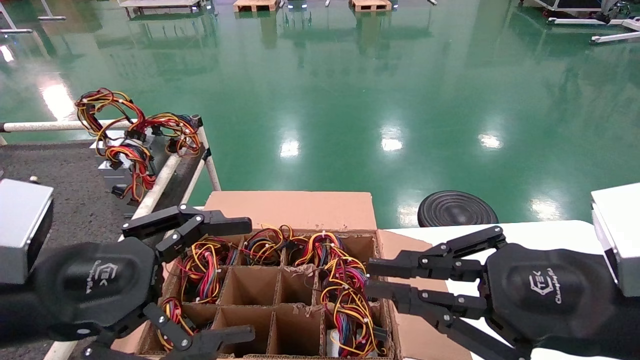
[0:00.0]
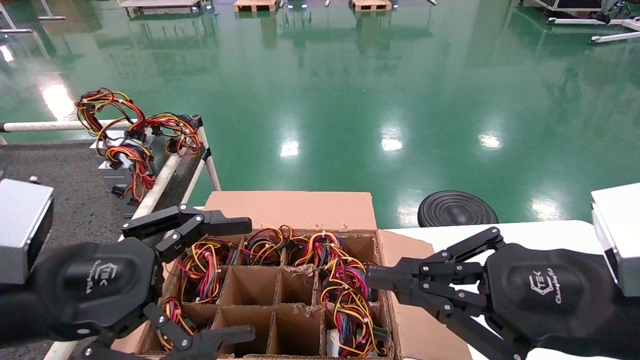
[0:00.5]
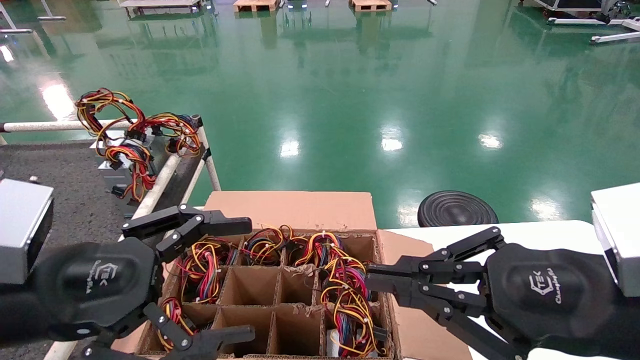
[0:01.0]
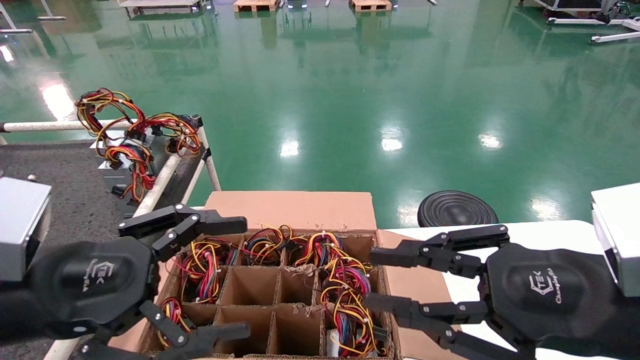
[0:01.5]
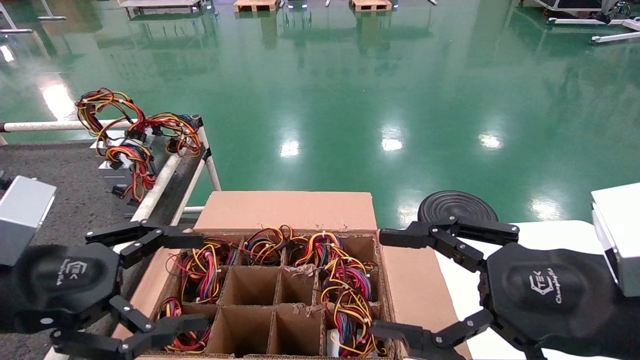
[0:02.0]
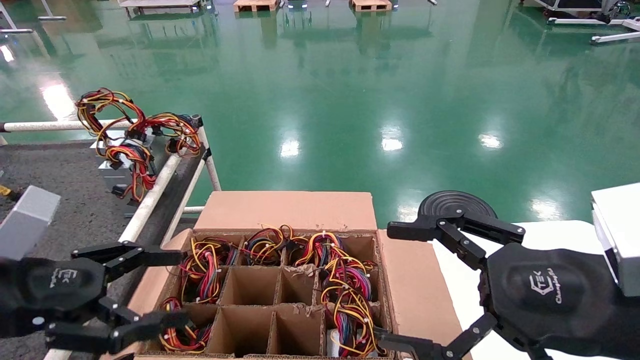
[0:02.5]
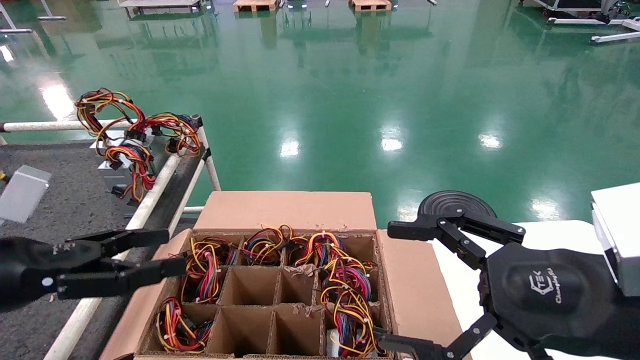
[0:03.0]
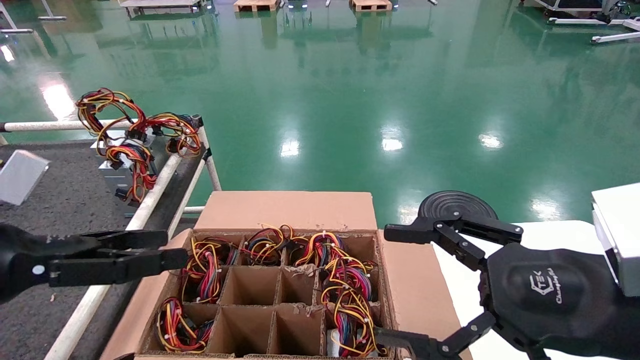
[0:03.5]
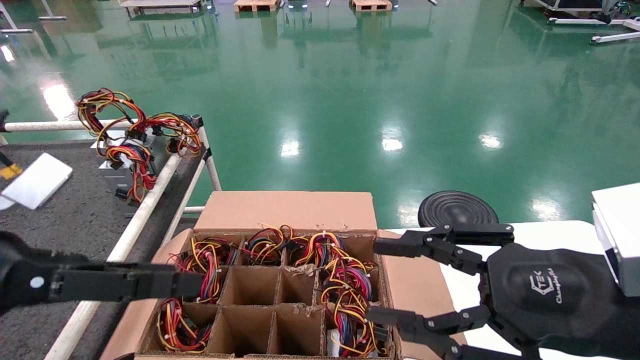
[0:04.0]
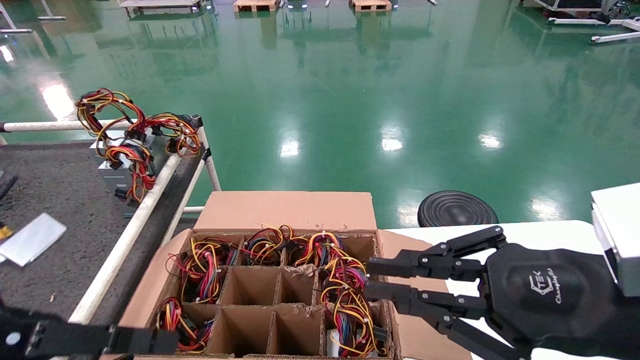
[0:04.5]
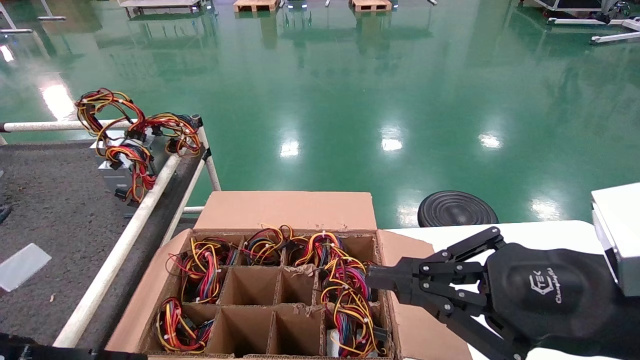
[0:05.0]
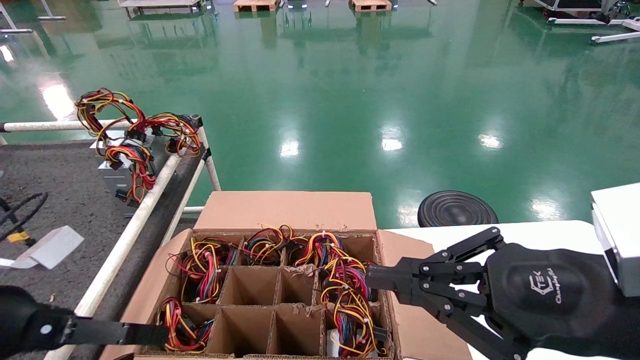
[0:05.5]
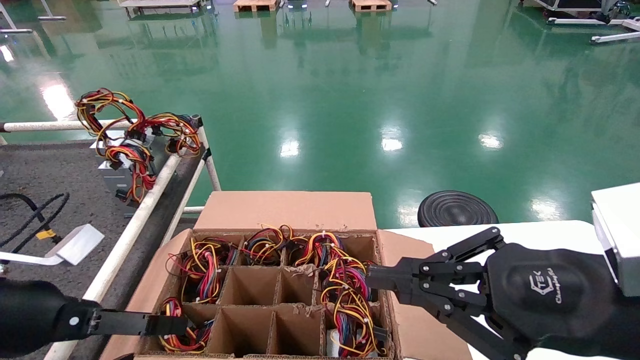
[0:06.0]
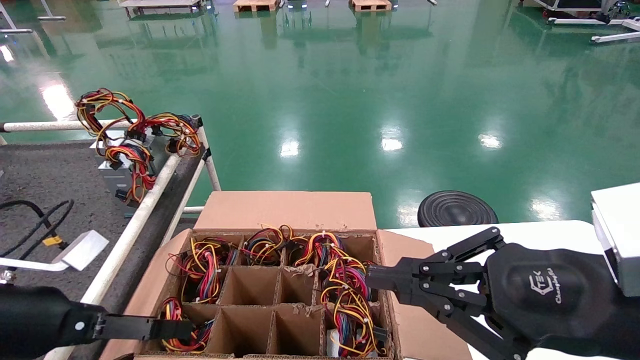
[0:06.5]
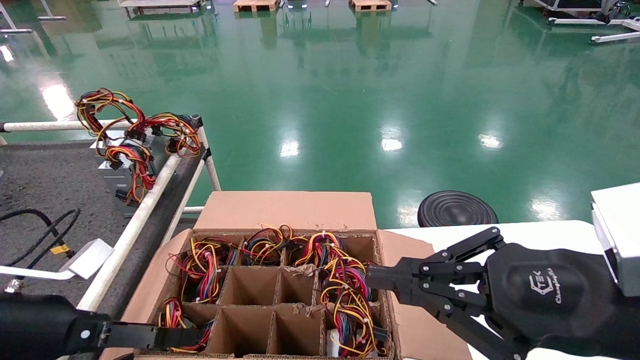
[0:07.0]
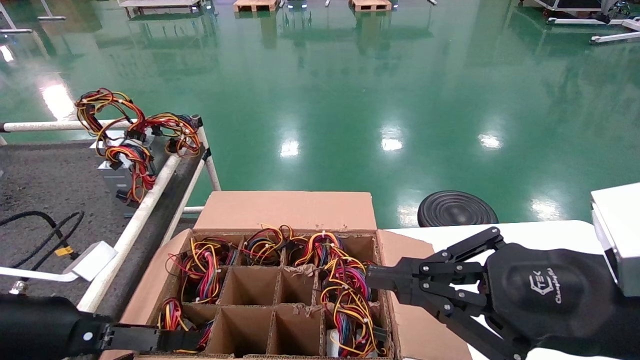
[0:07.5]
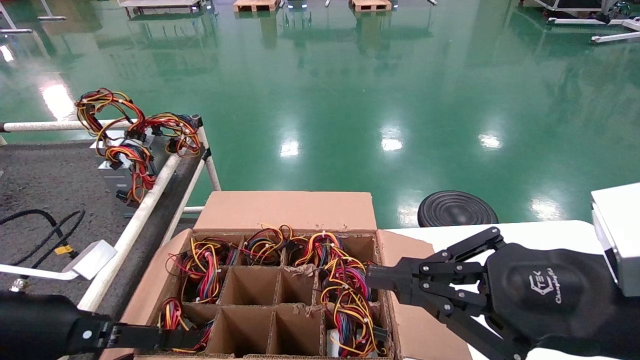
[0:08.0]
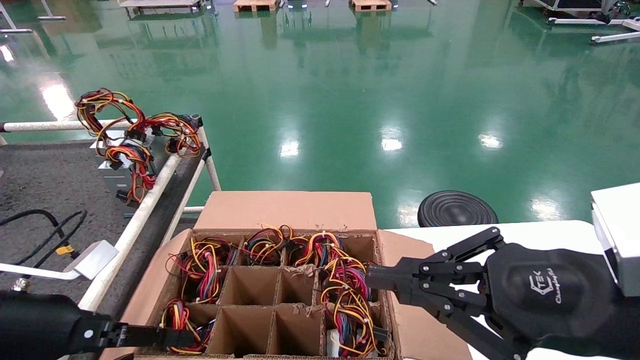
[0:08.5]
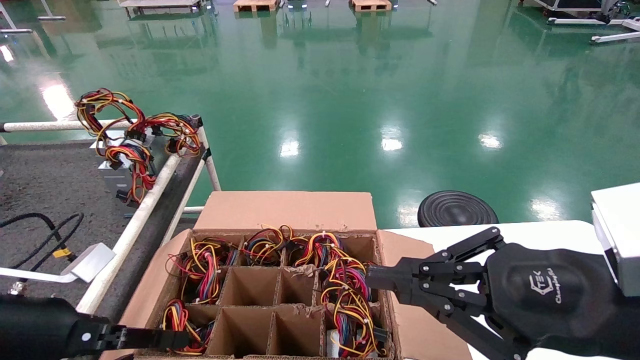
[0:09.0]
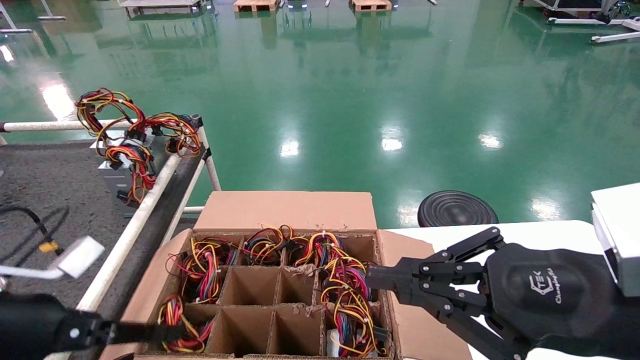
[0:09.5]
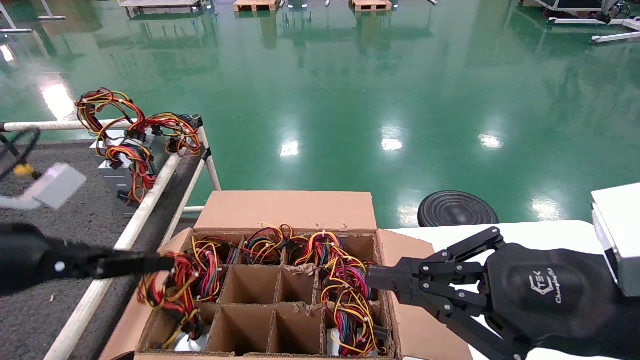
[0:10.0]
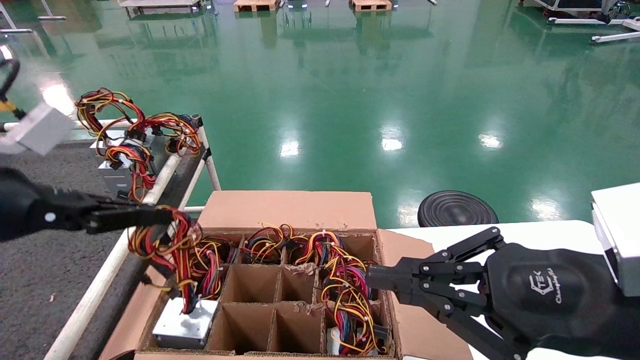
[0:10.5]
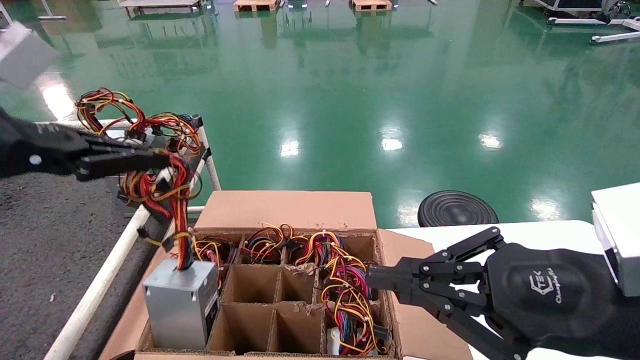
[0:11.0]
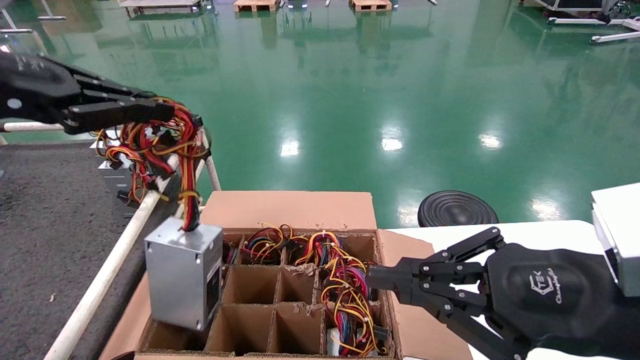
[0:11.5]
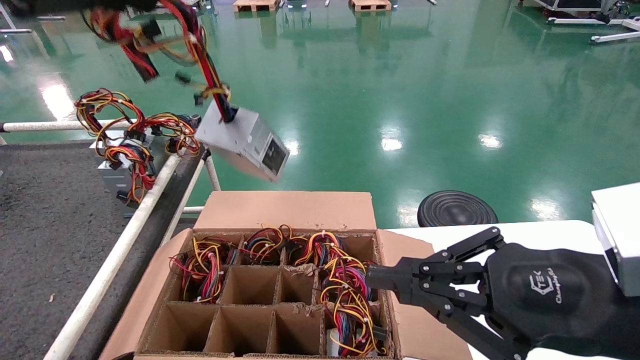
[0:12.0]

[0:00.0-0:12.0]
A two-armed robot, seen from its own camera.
Step, 0:02.0 to 0:09.0: Grab and lift the power supply from the large box.
0:00.0 to 0:02.0: The right gripper opens up.
0:04.0 to 0:06.0: The right gripper closes its fingers; the left gripper goes roughly 10 cm downward and forward.
0:06.0 to 0:08.0: There are only small adjustments of the grippers.
0:08.0 to 0:10.0: The left gripper goes approximately 10 cm upward, and closes.
0:10.0 to 0:12.0: The left gripper moves upward and backward, approximately 25 cm.

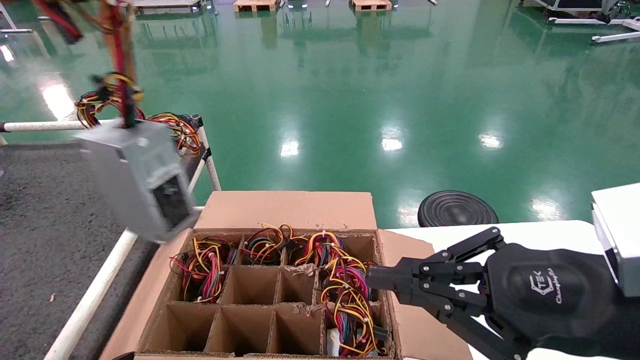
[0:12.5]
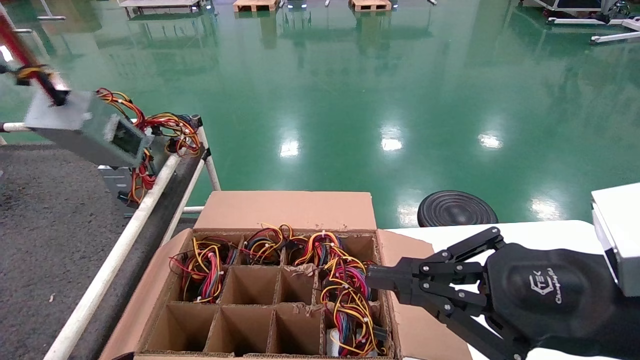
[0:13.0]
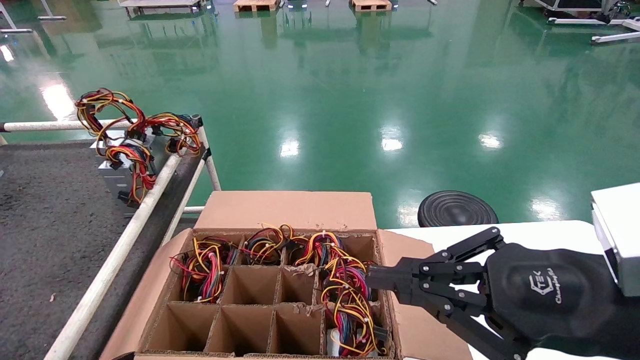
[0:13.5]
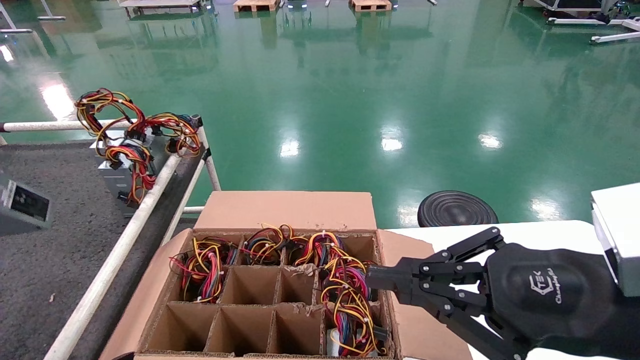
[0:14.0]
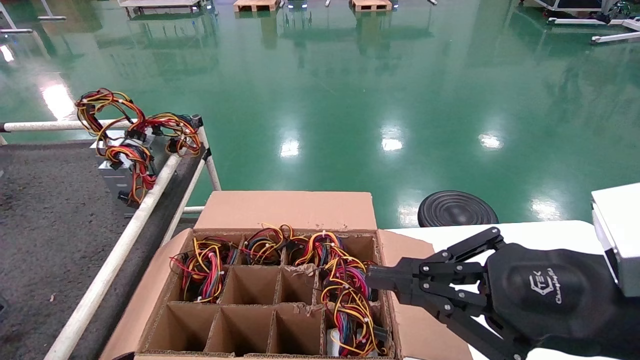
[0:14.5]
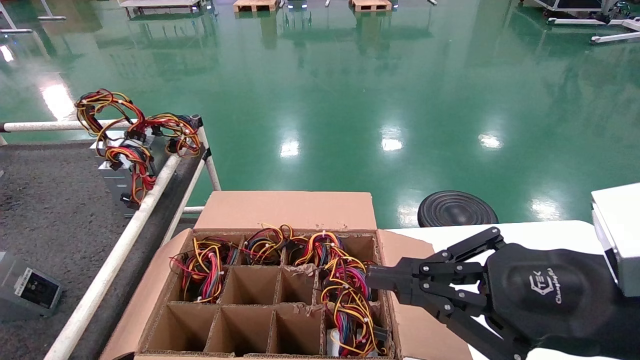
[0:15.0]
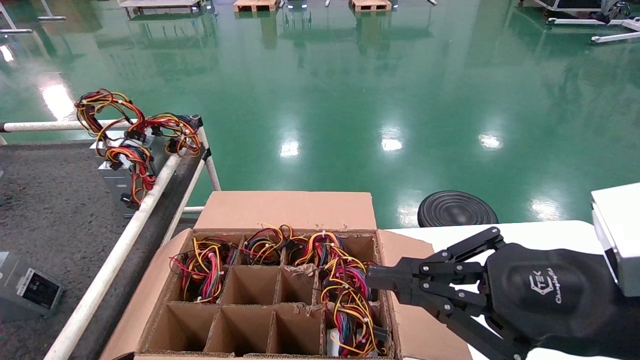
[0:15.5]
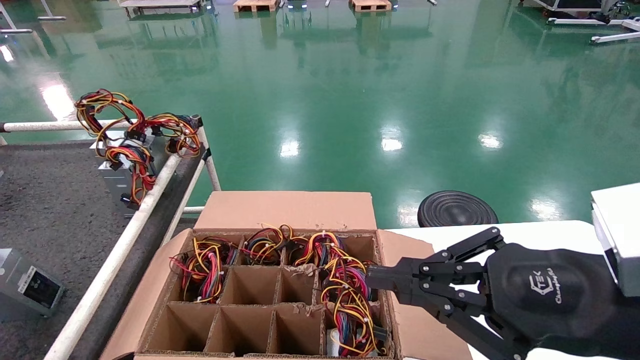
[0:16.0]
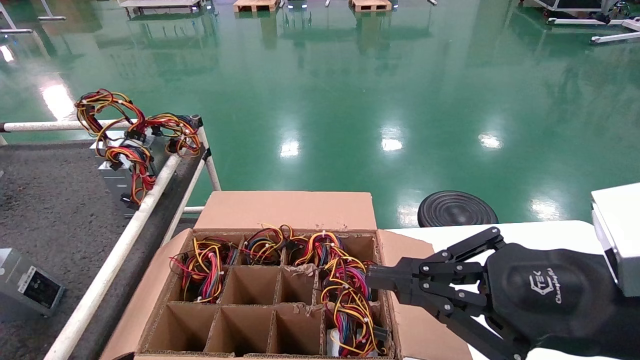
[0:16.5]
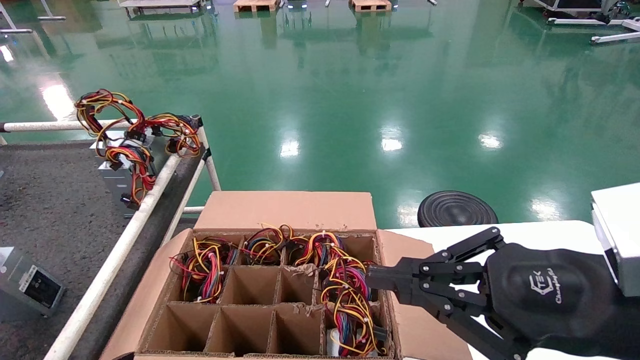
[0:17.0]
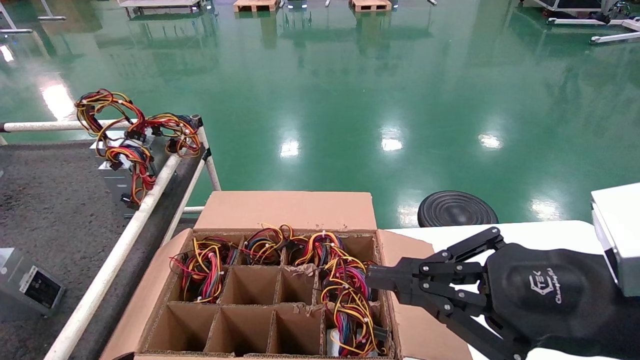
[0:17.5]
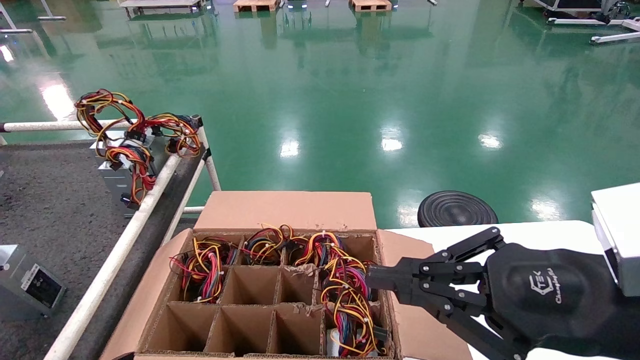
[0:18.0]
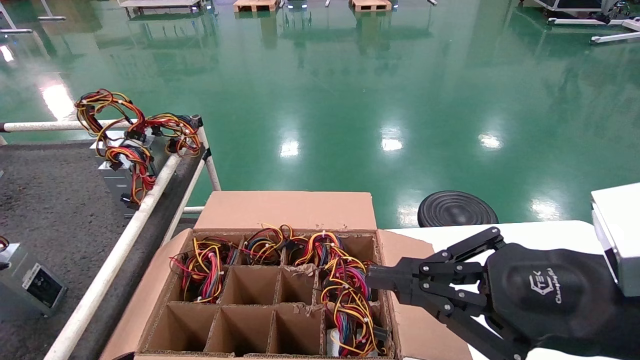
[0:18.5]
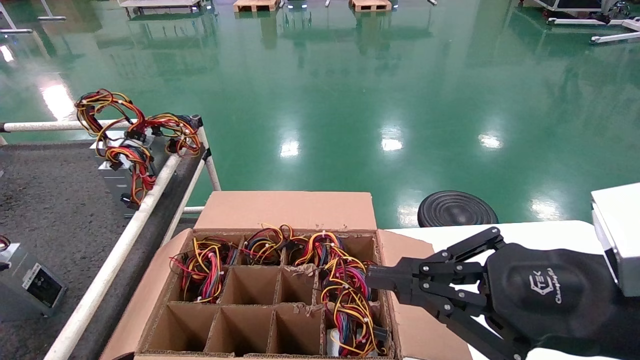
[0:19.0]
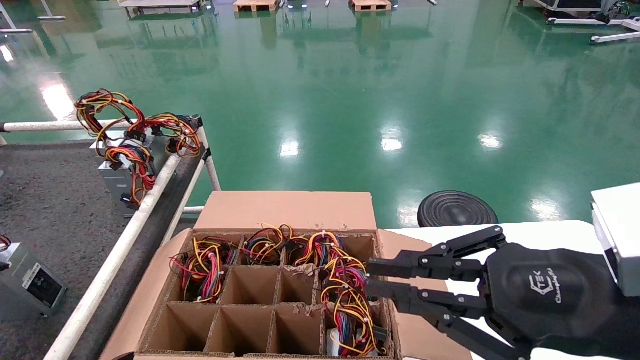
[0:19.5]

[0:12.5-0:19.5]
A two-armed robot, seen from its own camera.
Step, 0:12.5 to 0:17.5: Place the power supply on the operating table.
0:12.5 to 0:14.5: The left gripper goes some 20 cm to the left and downward.
0:14.5 to 0:16.0: The left gripper travels downward by roughly 10 cm.
0:17.5 to 0:19.5: The left gripper opens its fingers.
